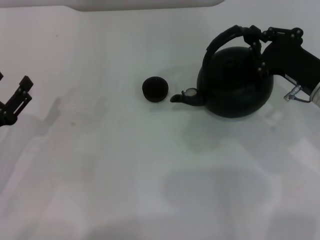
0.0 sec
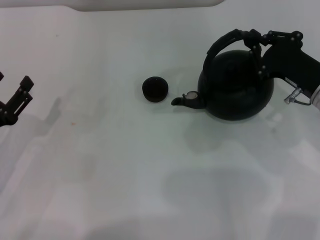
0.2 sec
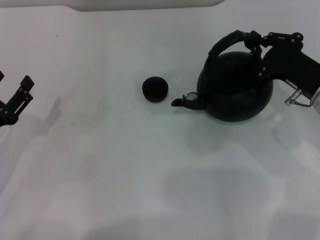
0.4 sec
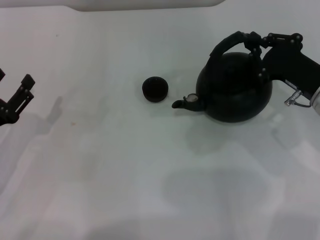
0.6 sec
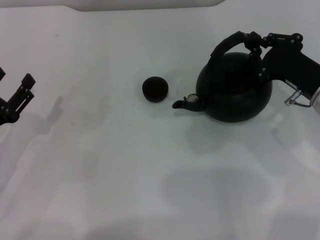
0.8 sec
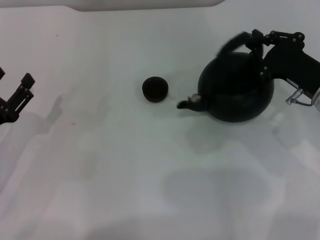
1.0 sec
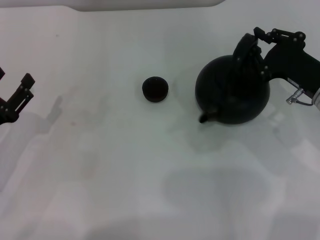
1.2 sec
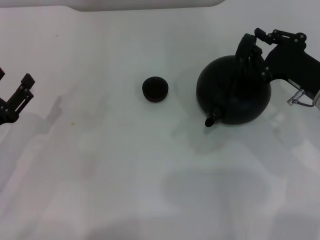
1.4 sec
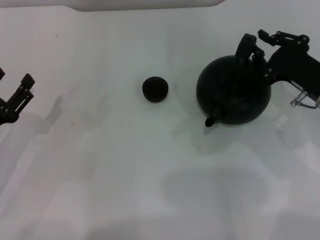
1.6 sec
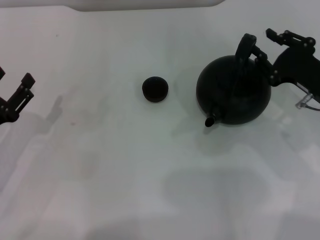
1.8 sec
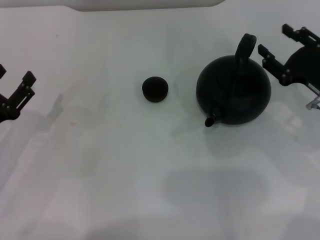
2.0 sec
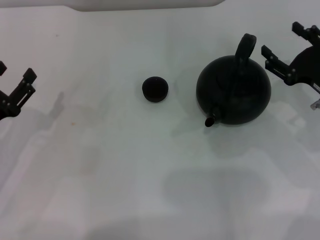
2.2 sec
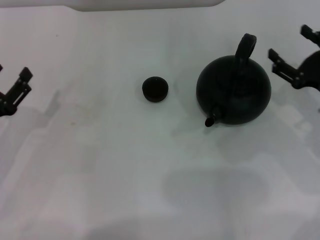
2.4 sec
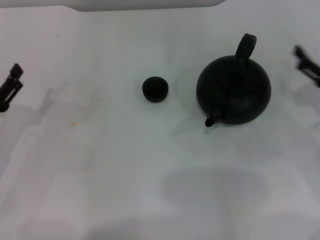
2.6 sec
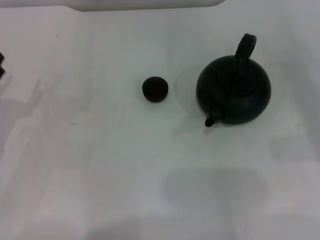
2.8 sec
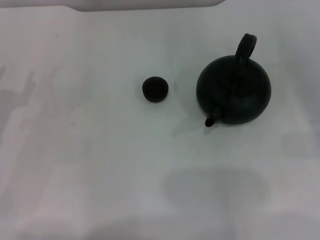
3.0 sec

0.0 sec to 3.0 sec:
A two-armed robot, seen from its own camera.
Task of the whole recording: Grasp the handle of the teapot with one hand and pour tea into the teacup.
0.0 sec to 1.6 sec: Both grippers stay about where they are.
1.6 sec to 3.0 sec: The right gripper heads to the right, covering some 15 cm, and opens.

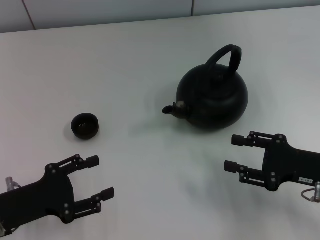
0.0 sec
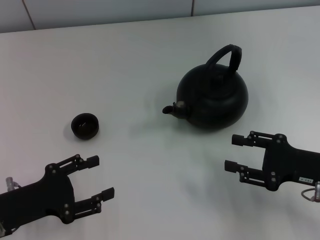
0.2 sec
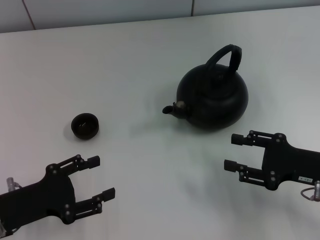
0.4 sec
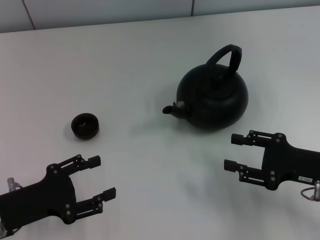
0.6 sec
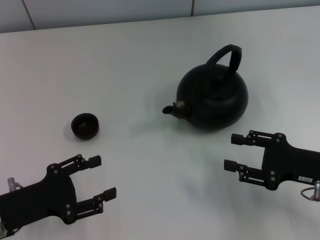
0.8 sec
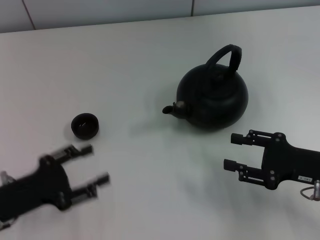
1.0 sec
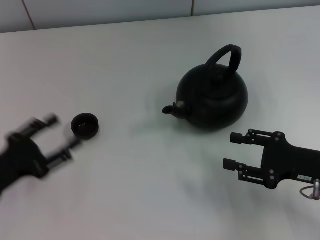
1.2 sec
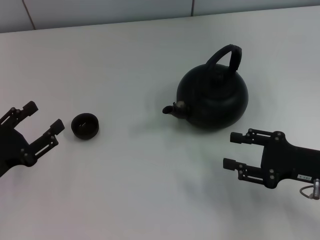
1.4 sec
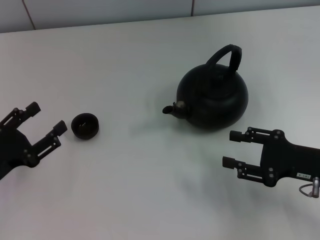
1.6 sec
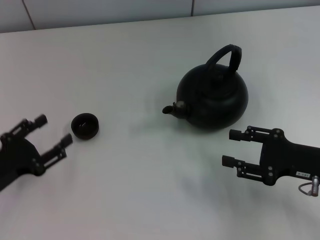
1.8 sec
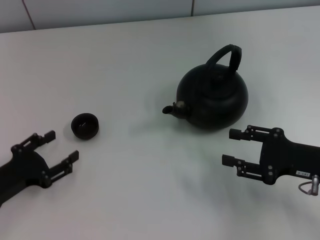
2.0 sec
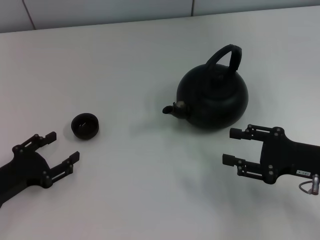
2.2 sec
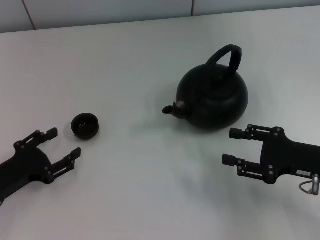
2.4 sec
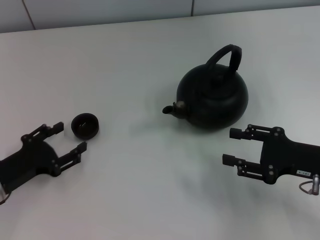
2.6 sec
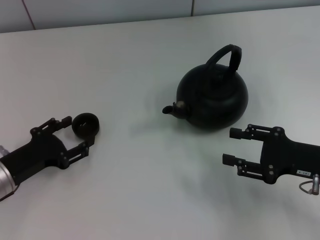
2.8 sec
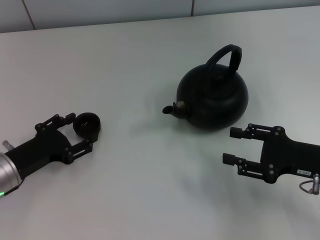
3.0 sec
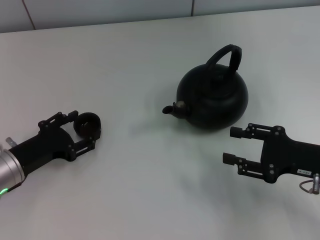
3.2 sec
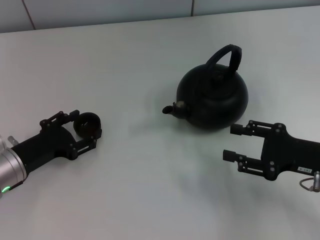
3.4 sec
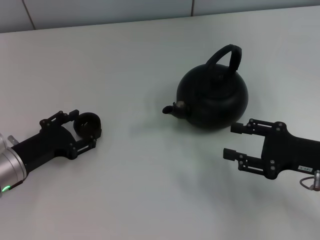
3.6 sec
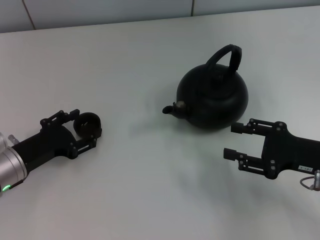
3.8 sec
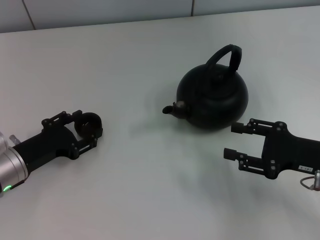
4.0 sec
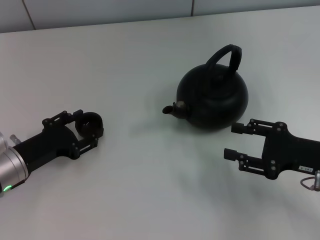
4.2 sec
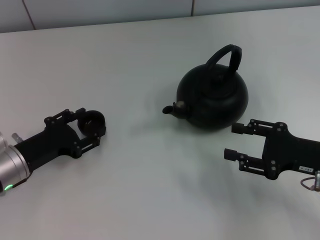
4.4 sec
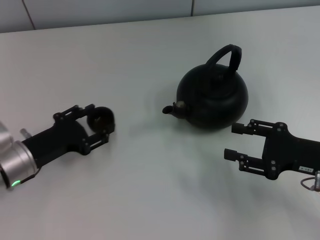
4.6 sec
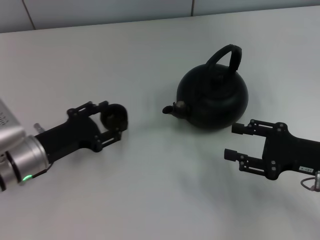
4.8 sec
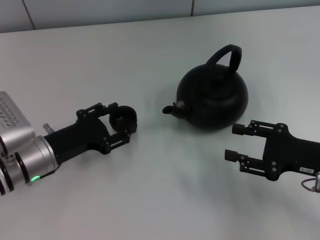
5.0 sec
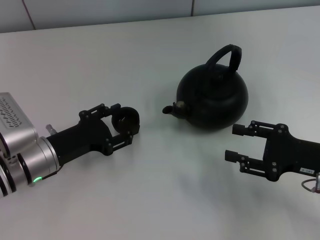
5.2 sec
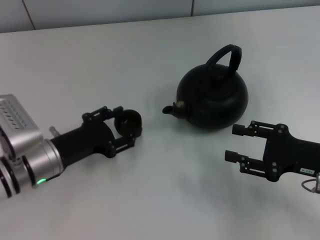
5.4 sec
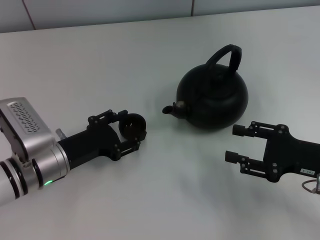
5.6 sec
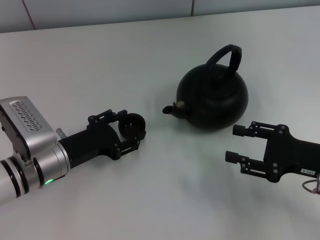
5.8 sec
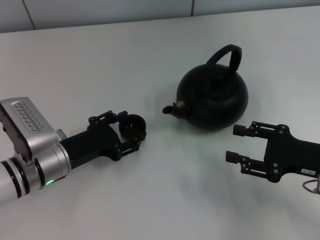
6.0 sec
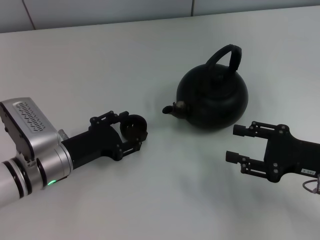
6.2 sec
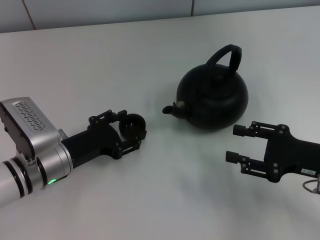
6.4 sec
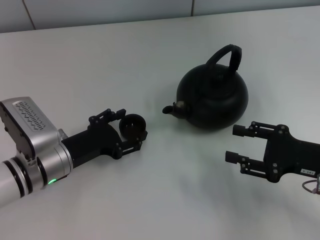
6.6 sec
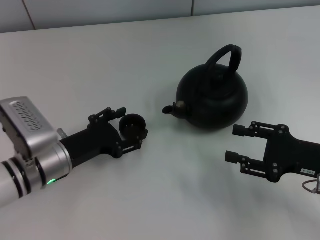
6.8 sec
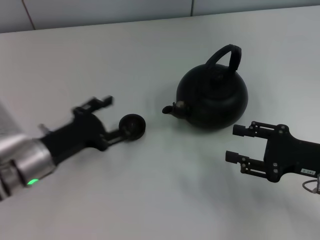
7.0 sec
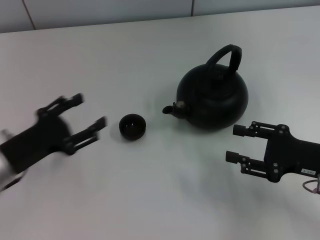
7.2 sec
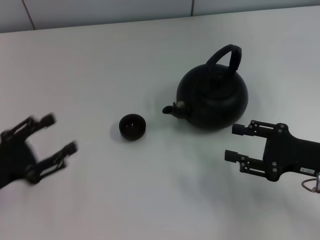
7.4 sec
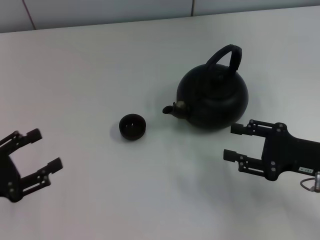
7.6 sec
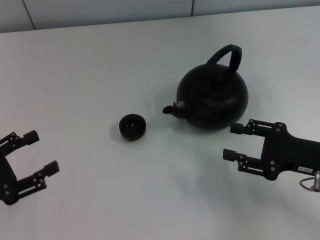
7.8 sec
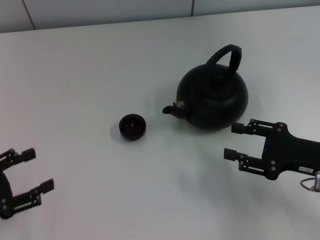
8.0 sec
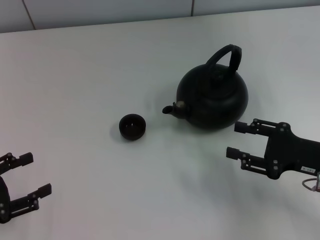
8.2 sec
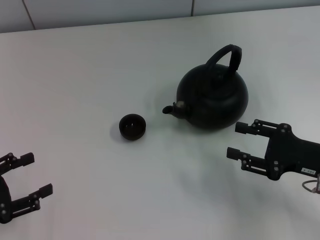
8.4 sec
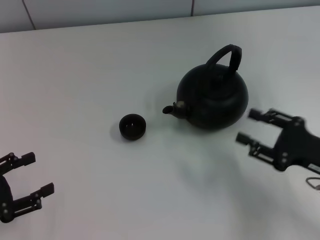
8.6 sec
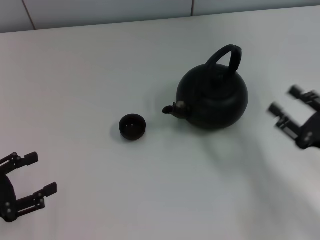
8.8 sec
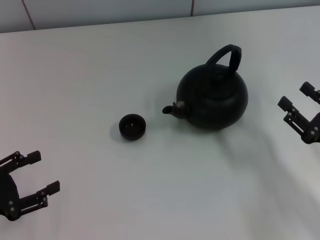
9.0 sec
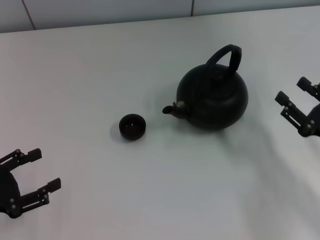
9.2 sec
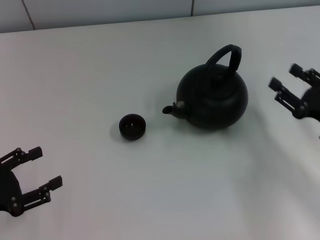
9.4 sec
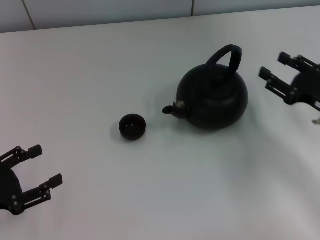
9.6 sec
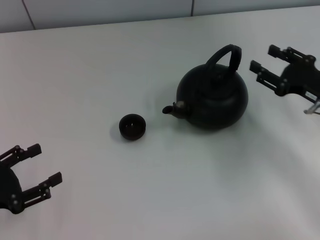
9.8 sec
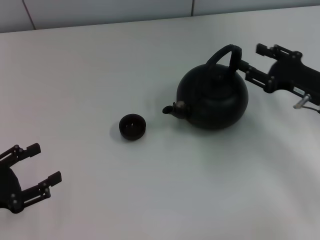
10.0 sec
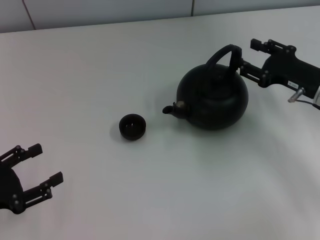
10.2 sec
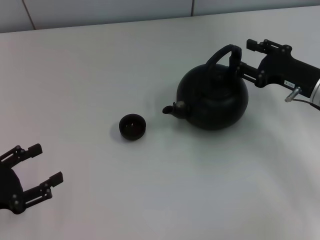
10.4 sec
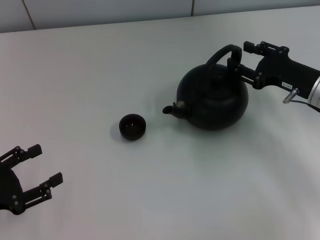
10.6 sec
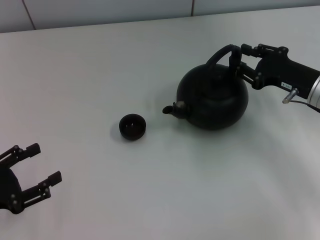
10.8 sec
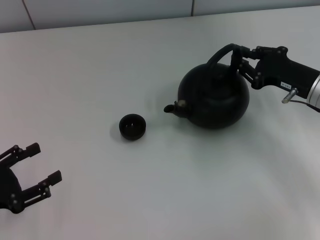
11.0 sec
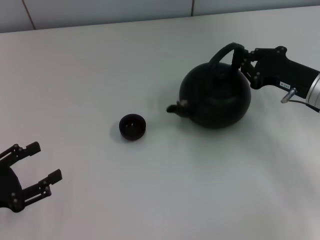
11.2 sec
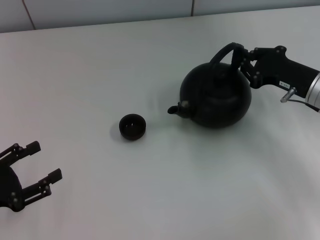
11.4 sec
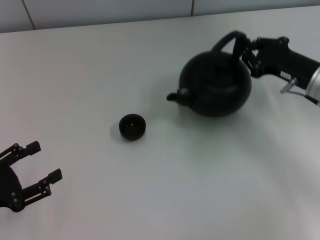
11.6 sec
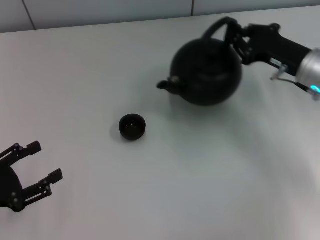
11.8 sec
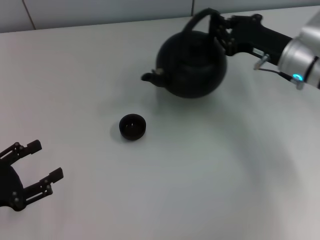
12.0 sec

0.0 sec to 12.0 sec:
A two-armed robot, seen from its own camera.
Task of the whole recording: Grasp the handle of the teapot with one hand and pour tea into the teacup.
Step, 0.0 sec to 4.6 sec: Pick up the teacup with the left gripper.
Step, 4.8 sec to 7.2 sec: Place the teacup in the center of view with the left gripper.
Step, 7.4 sec to 11.6 sec: Pick up the teapot with the right gripper.
1.6 sec to 3.0 sec: The left gripper changes place by about 5 cm.
3.0 sec to 4.4 sec: There are only small adjustments of the grippers.
4.4 sec to 6.0 sec: The left gripper travels to the right by some 5 cm.
6.0 sec to 7.6 sec: The left gripper moves to the left and backward, approximately 15 cm, and opens.
9.0 sec to 10.4 sec: The right gripper shifts some 15 cm forward.
10.4 sec to 12.0 sec: The right gripper changes place by about 5 cm, and closes up.

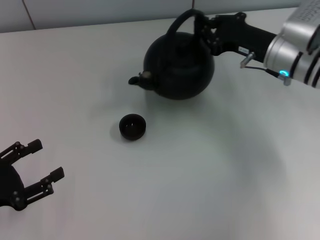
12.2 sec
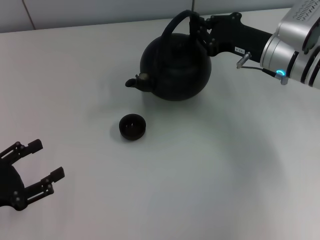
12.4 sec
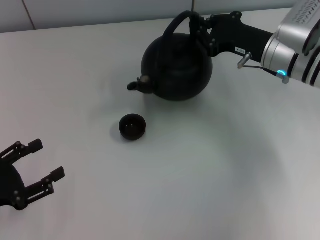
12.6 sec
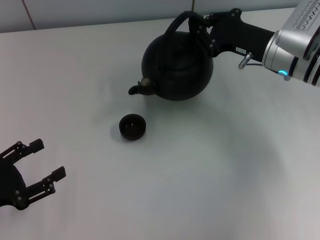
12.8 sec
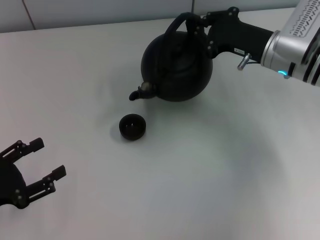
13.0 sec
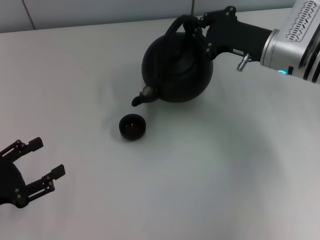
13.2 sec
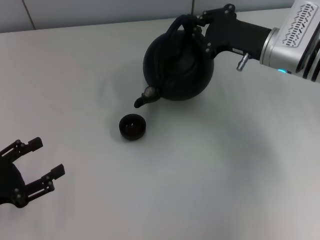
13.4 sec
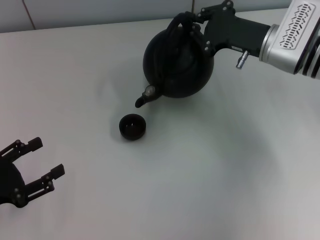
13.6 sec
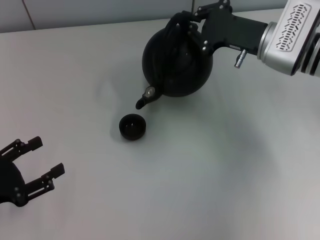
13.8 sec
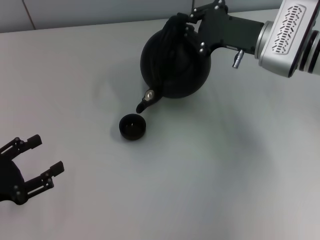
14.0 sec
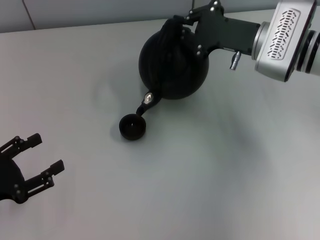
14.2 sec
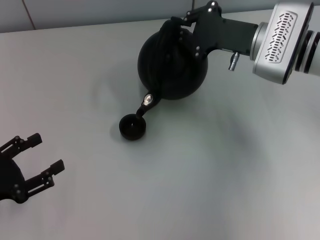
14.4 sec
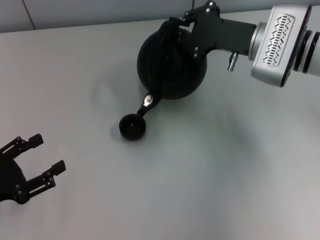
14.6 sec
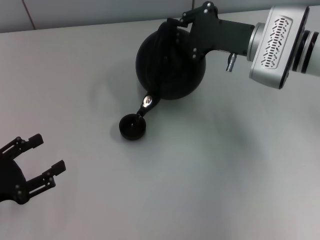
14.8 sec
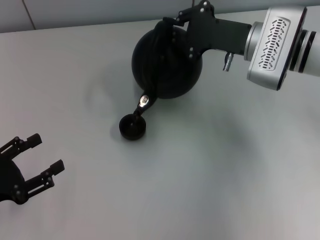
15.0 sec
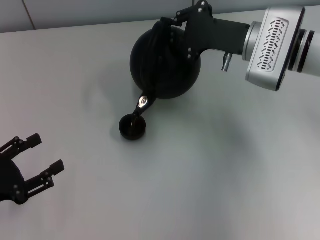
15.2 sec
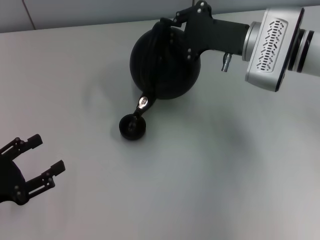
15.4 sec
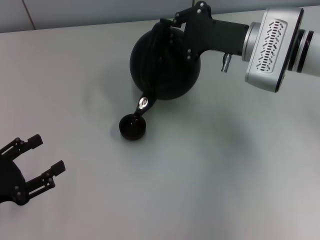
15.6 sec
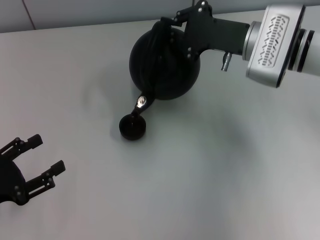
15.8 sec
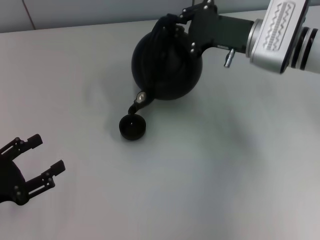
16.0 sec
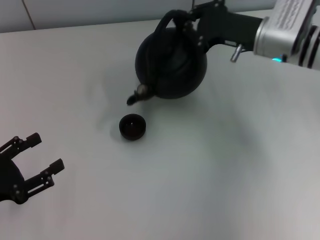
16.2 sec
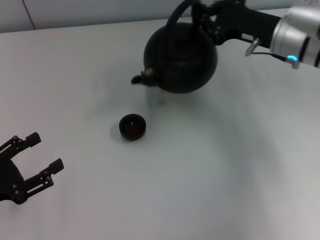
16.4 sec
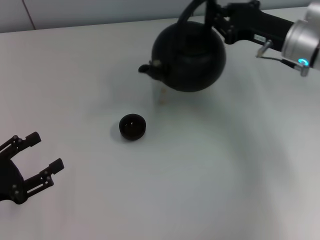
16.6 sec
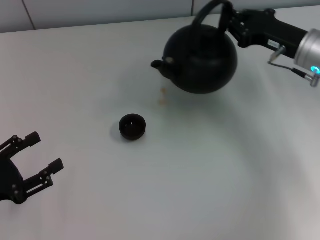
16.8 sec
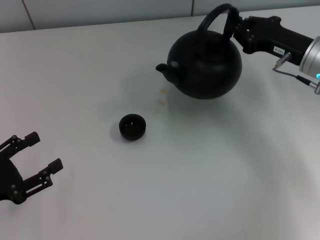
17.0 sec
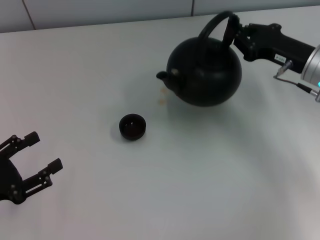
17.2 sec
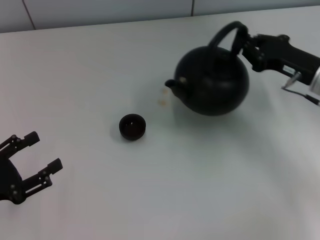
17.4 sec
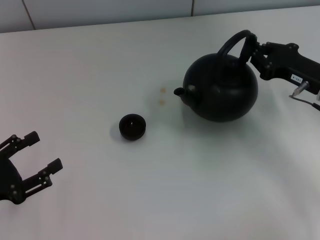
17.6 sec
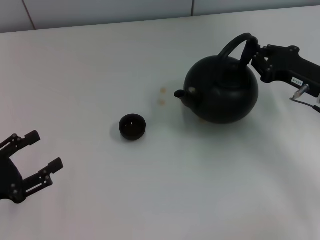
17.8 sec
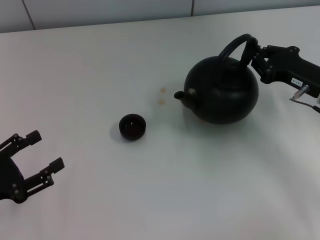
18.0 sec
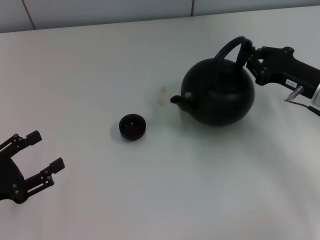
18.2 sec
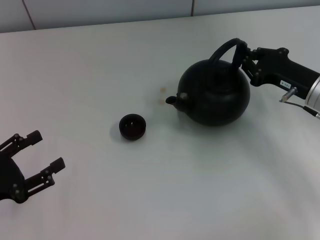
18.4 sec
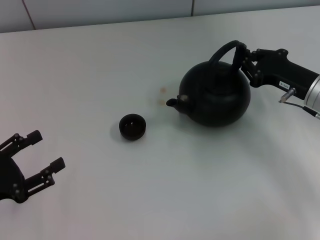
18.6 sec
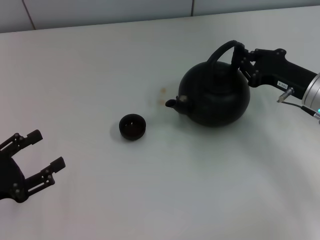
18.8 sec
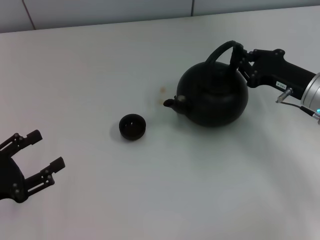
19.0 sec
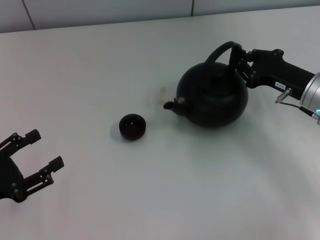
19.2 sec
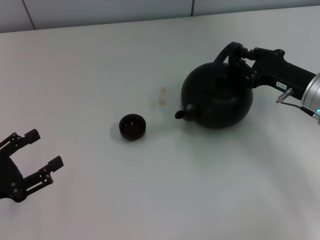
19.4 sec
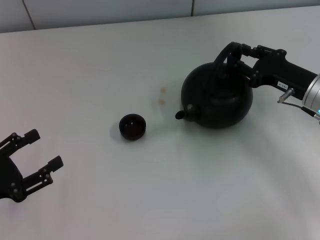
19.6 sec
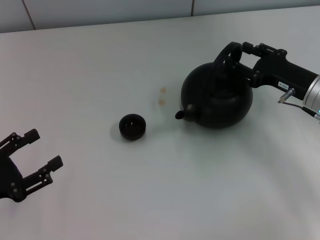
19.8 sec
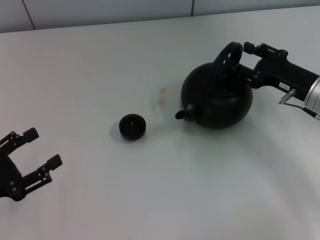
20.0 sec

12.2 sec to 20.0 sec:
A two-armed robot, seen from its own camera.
Task of the whole recording: Grasp the handle of the teapot with one hand and pour tea into the teacup.
13.8 sec to 15.4 sec: The grippers stay close to where they were, moving slightly.
15.4 sec to 16.8 sec: The right gripper is displaced to the right by approximately 10 cm.
16.8 sec to 18.4 sec: The right gripper moves some 5 cm.
18.4 sec to 20.0 sec: The right gripper opens its fingers.
